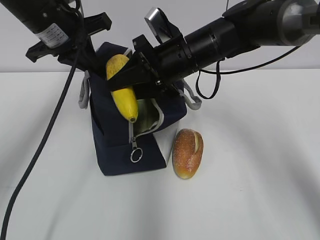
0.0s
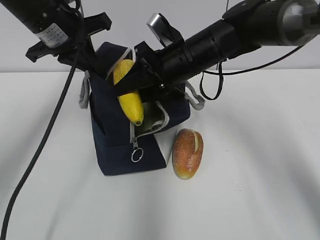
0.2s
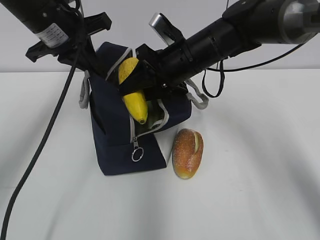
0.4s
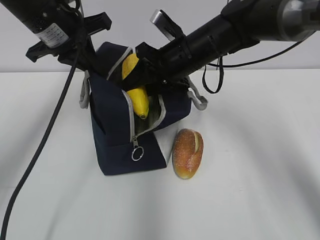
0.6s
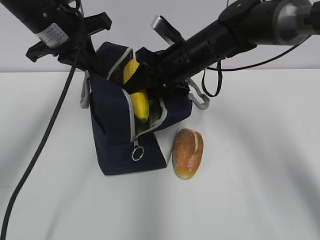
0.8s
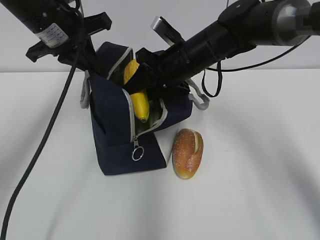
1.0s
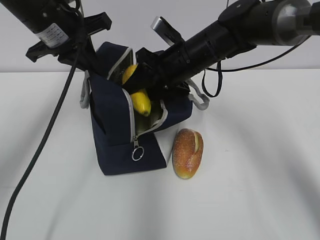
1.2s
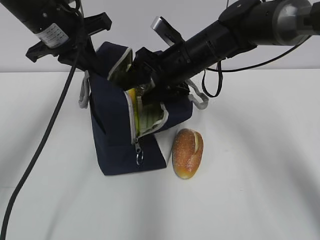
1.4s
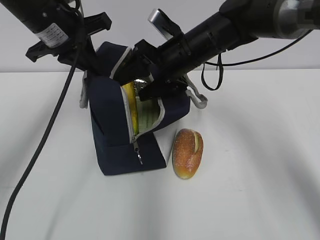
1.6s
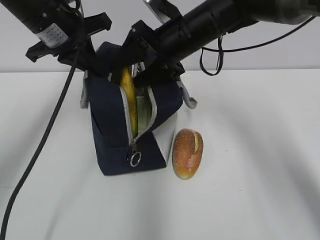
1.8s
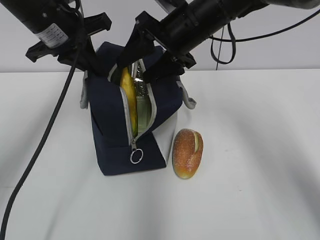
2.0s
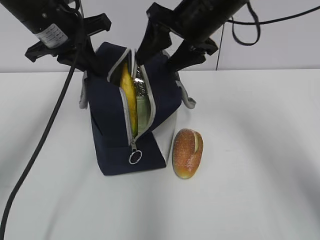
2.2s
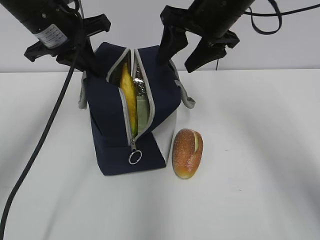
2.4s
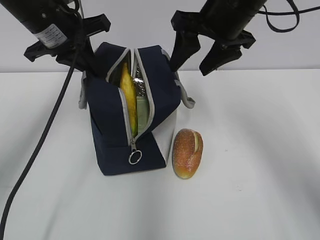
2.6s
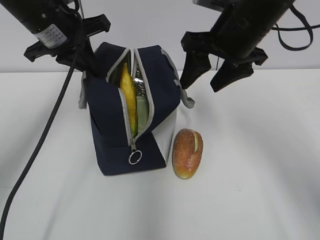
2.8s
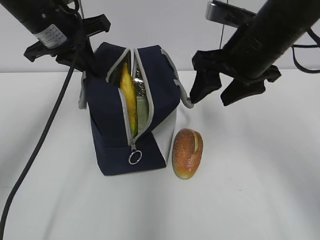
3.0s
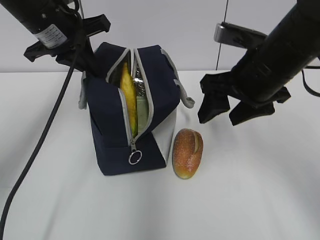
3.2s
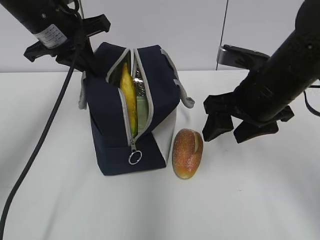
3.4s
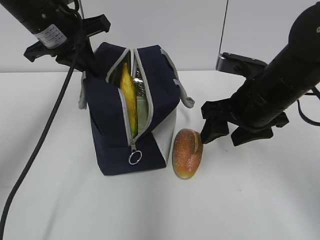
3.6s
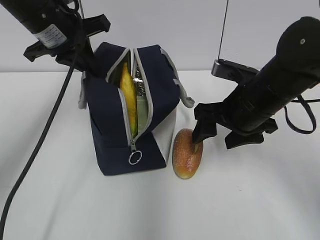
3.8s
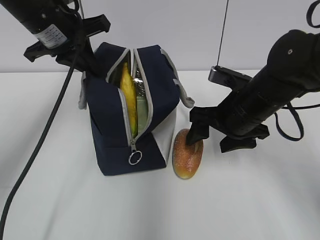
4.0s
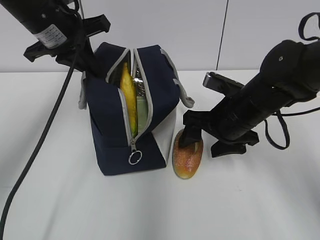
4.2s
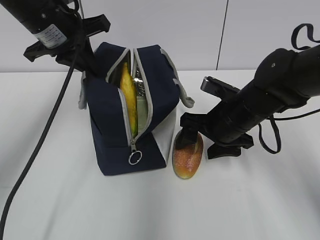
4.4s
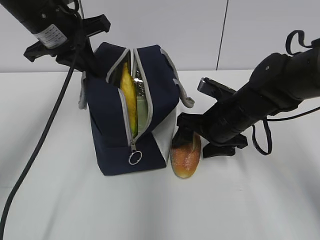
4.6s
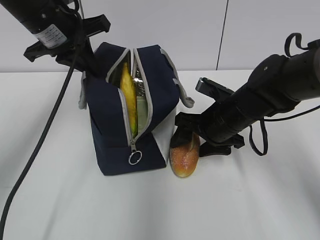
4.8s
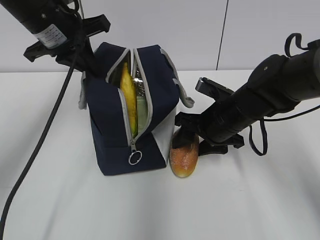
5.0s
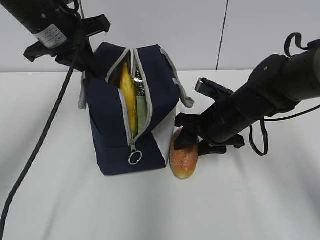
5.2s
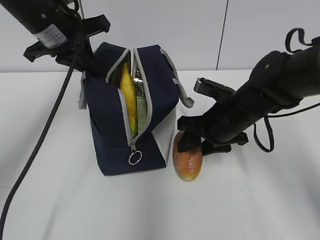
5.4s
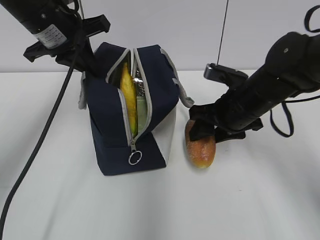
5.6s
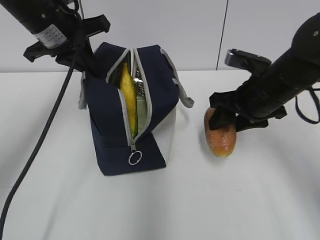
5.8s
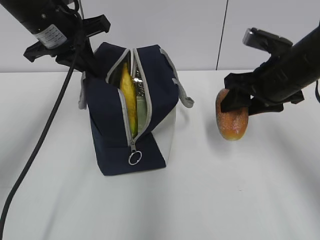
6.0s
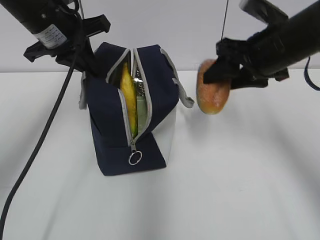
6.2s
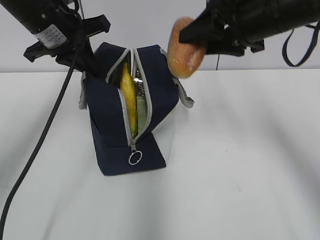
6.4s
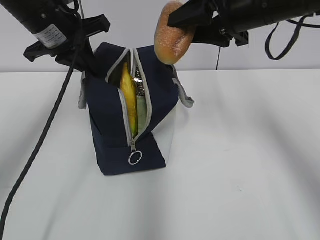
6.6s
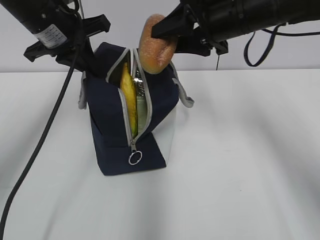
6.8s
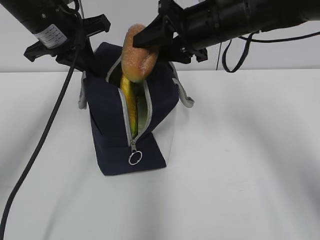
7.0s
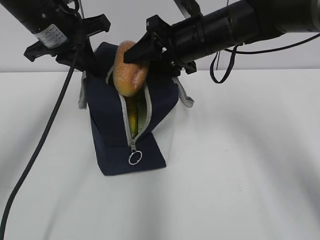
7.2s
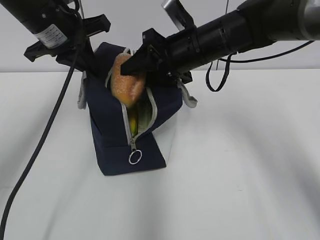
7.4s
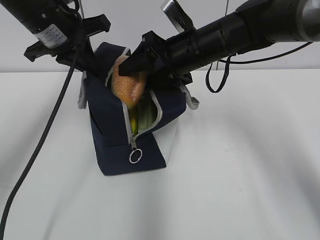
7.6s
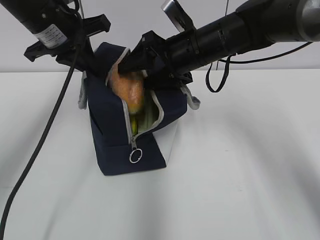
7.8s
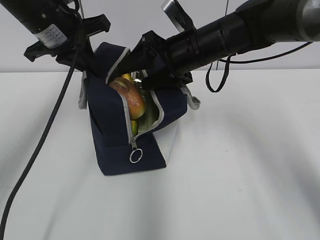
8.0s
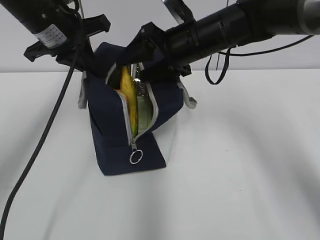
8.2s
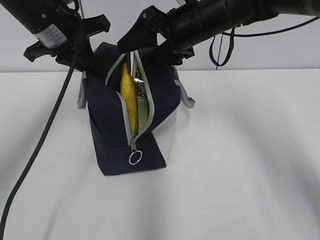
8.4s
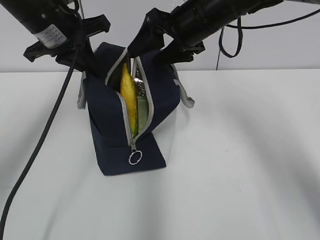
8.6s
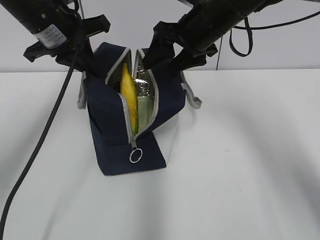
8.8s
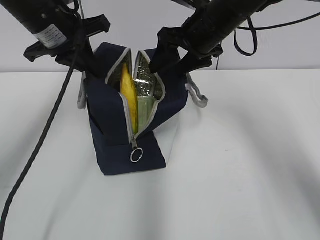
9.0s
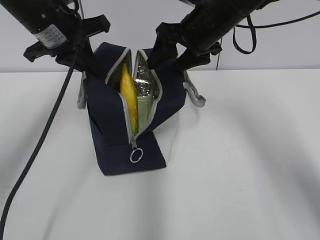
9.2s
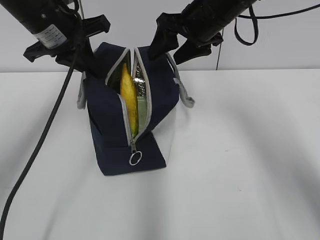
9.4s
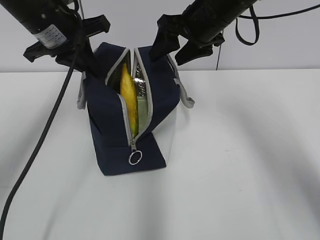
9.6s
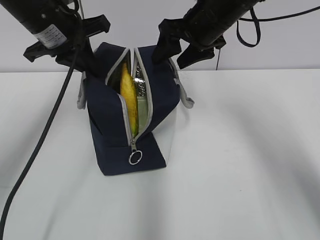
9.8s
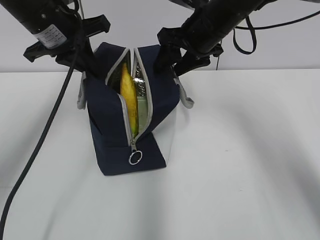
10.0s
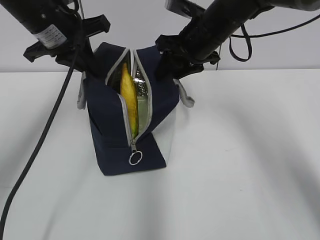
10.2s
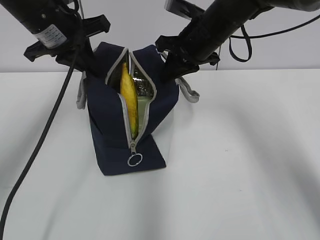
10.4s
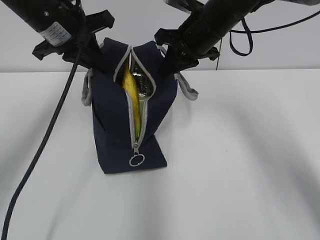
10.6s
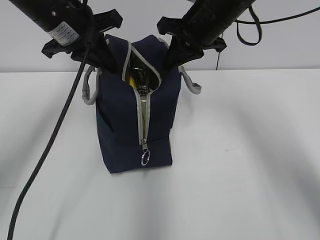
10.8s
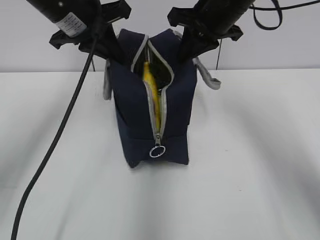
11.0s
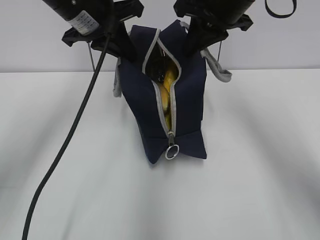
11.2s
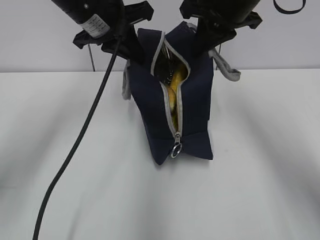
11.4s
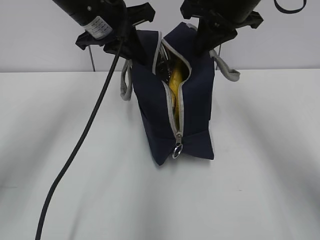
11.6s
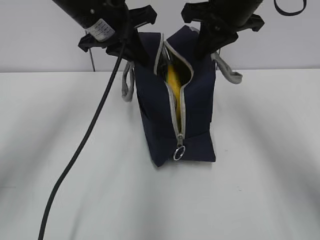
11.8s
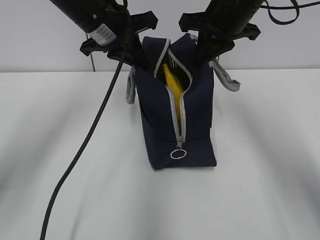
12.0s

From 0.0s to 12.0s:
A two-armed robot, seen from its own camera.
Step, from 1.6s to 5.2s: Grab the bread with your right hand.
Step, from 8.4s to 10.2s: Grab the lunch bag with your right hand.
From 0.0s to 1.6s: The right gripper opens.
From 1.6s to 3.0s: The right gripper is displaced backward, to the right and upward by about 15 cm.
From 3.0s to 4.4s: The right gripper travels downward by roughly 15 cm.
From 4.4s to 6.0s: The right gripper is displaced upward and to the right by roughly 10 cm, and closes its fingers.
From 6.0s to 7.6s: The right gripper travels to the left and forward by about 15 cm.
From 9.0s to 10.4s: The right gripper closes its fingers.
From 10.4s to 12.0s: The right gripper travels upward by about 5 cm, while the left gripper heads to the right, covering about 5 cm.

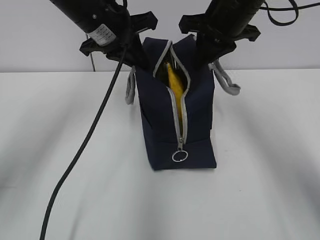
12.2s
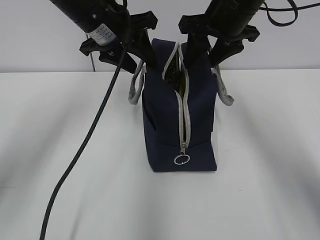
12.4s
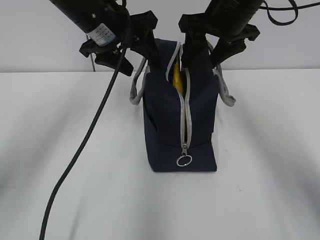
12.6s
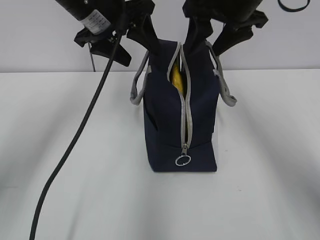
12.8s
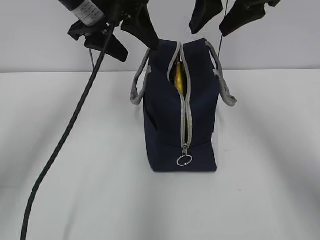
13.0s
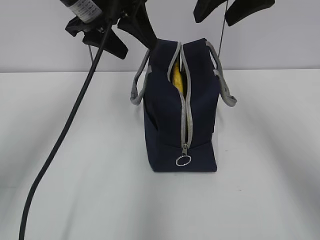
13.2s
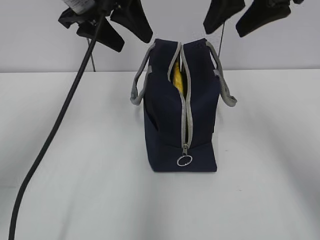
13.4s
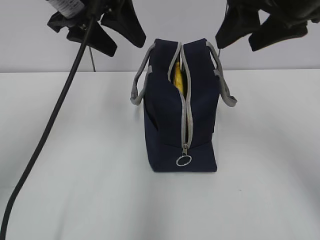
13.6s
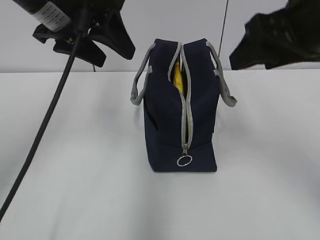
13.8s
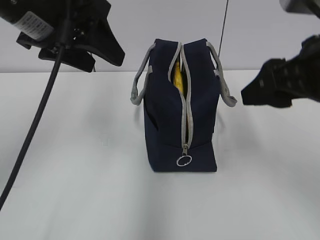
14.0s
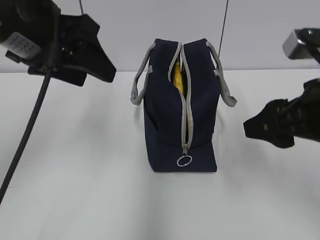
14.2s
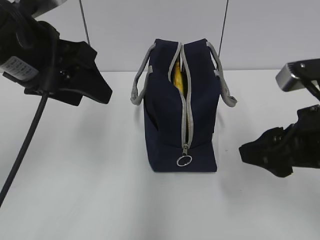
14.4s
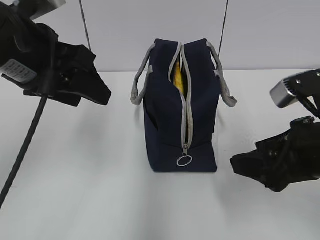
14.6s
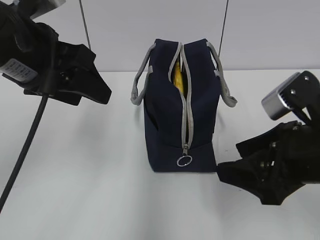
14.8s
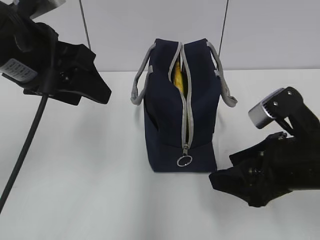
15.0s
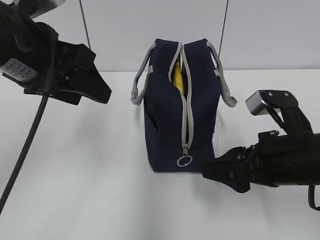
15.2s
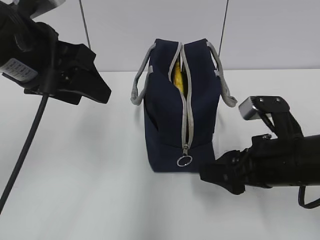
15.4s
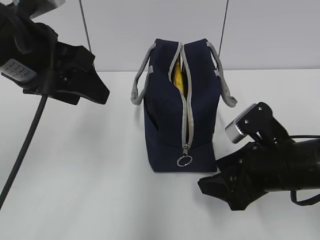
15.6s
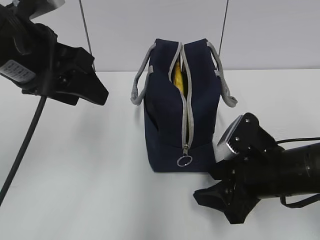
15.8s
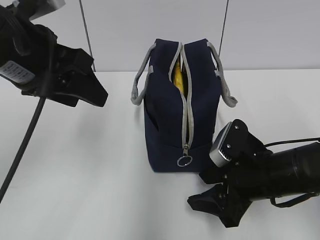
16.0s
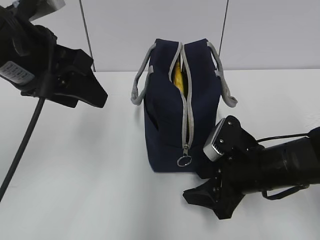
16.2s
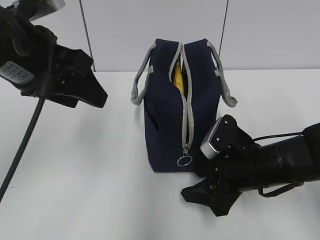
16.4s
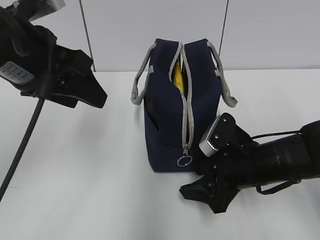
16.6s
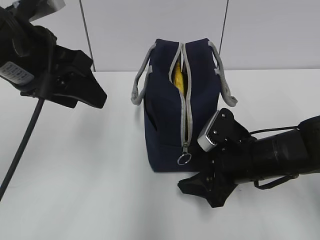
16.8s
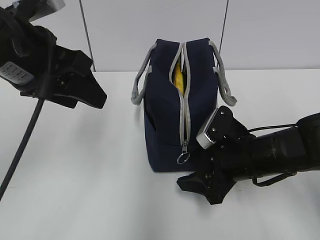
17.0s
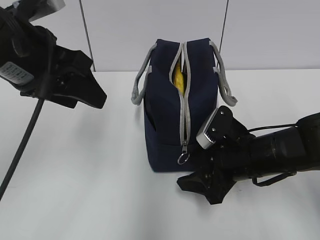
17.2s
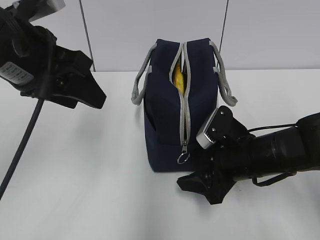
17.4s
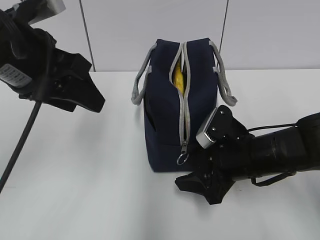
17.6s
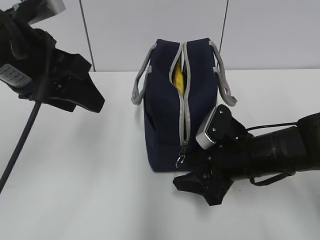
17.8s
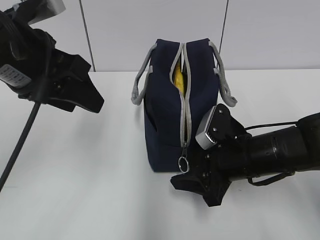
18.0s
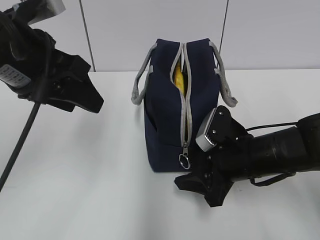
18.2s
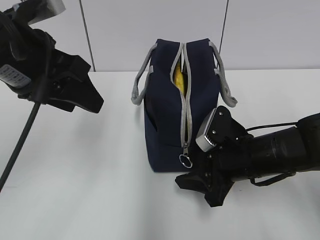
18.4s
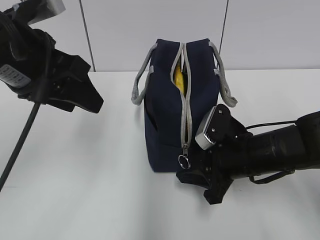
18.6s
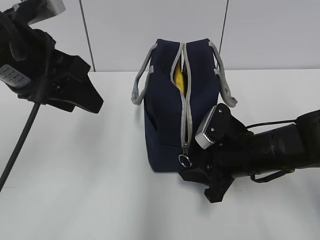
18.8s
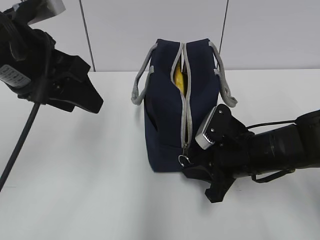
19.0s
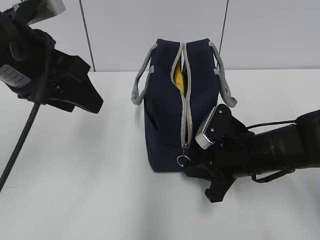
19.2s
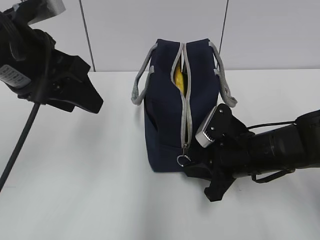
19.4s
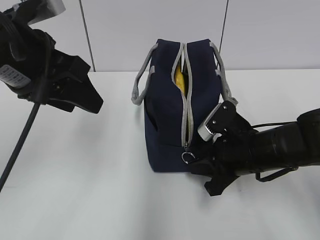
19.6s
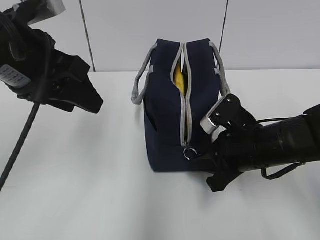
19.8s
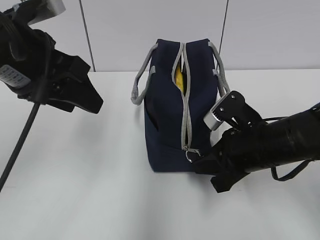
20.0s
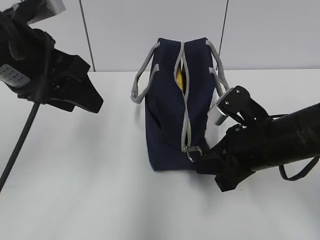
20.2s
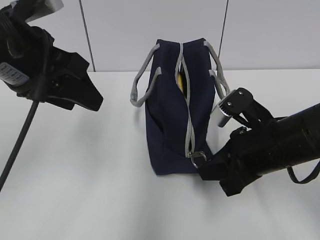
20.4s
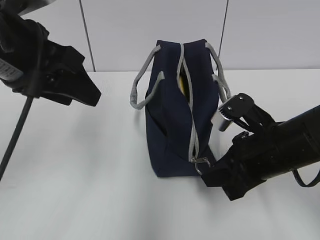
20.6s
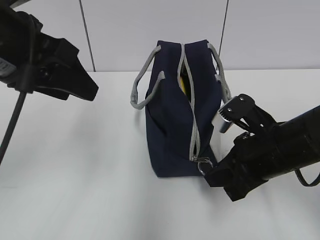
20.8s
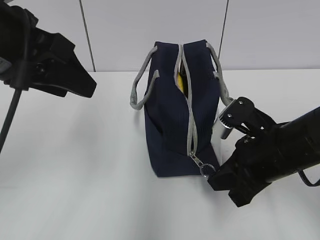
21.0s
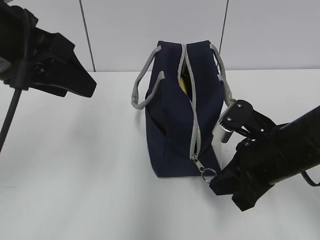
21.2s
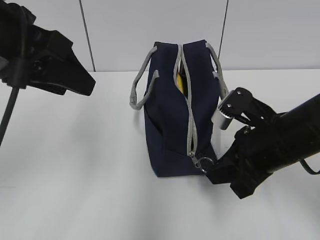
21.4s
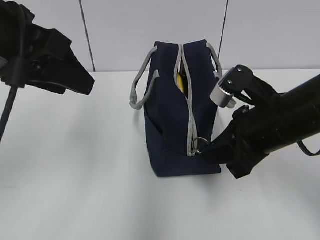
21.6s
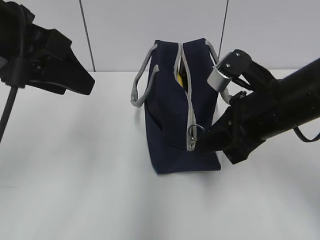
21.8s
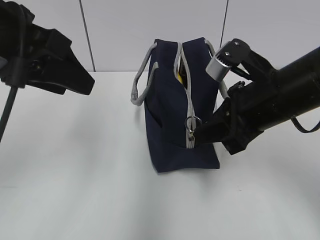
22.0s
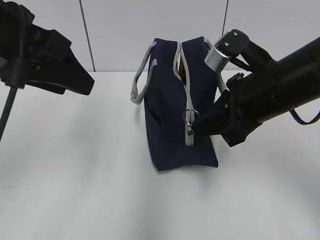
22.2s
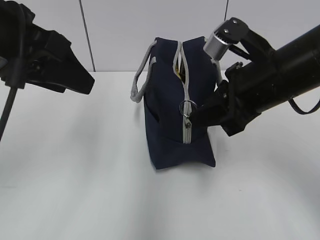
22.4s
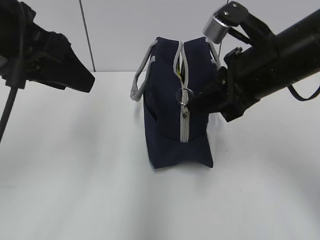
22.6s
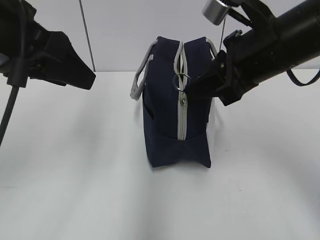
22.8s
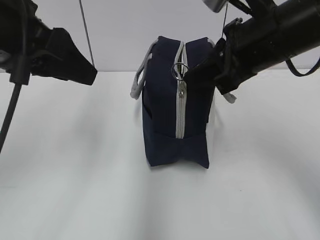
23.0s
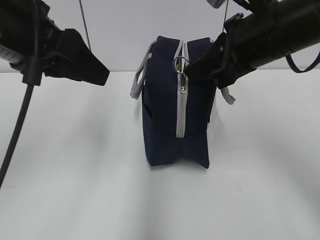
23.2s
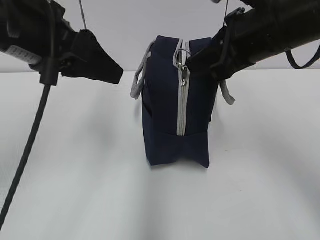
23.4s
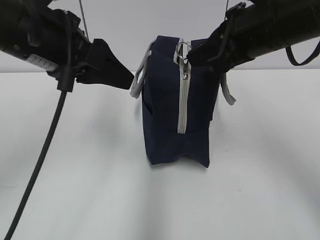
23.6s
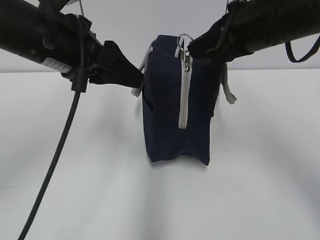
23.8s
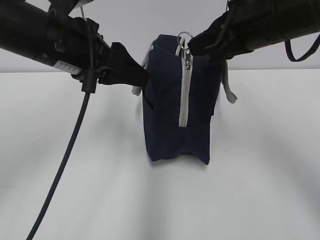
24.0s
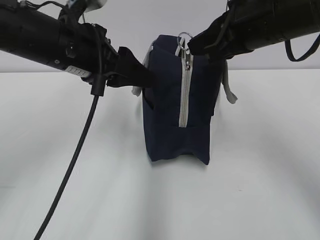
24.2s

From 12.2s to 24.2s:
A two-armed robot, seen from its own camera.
From 12.2s to 13.8s: The left gripper is displaced backward and upward by about 10 cm, and opens its fingers, while the right gripper is displaced backward by roughly 15 cm, and opens its fingers.
From 13.8s to 15.2s: The left gripper shifts roughly 5 cm backward, while the right gripper travels downward by some 15 cm.
From 15.2s to 16.6s: The right gripper heads downward and forward, covering approximately 10 cm.
From 16.6s to 18.2s: The grippers move only a little.
From 18.2s to 19.8s: The right gripper closes.
From 19.8s to 21.2s: The grippers stay close to where they were, moving slightly.
From 21.2s to 22.6s: The right gripper goes roughly 10 cm upward.
From 22.6s to 24.2s: The left gripper is displaced forward, downward and to the right by about 10 cm; the right gripper shifts by approximately 5 cm.
